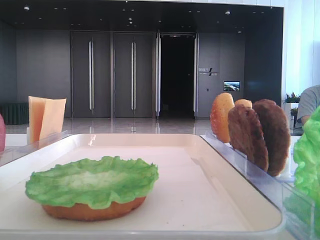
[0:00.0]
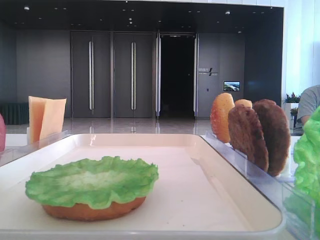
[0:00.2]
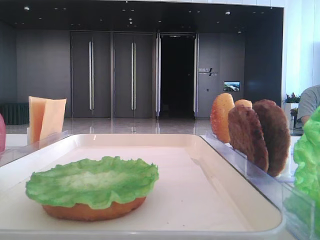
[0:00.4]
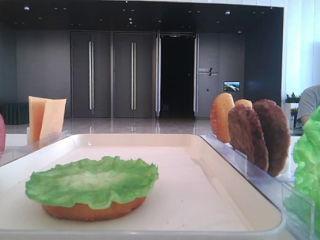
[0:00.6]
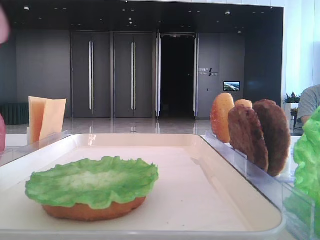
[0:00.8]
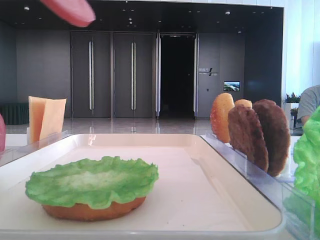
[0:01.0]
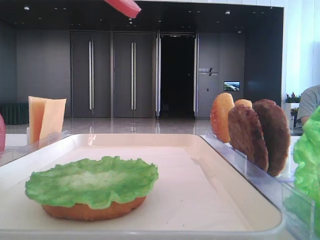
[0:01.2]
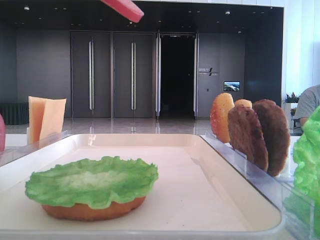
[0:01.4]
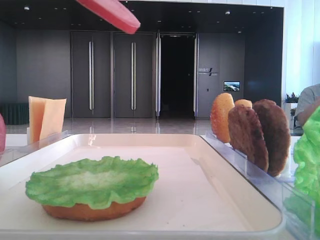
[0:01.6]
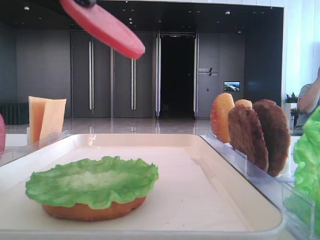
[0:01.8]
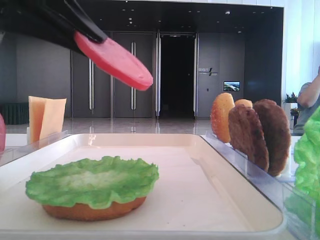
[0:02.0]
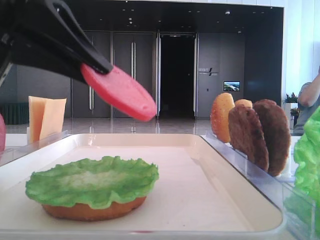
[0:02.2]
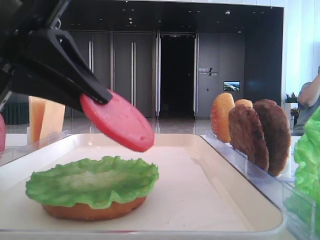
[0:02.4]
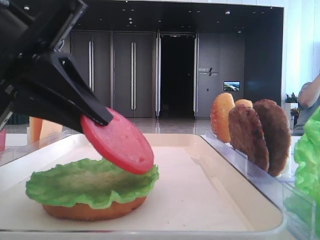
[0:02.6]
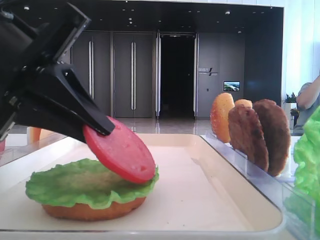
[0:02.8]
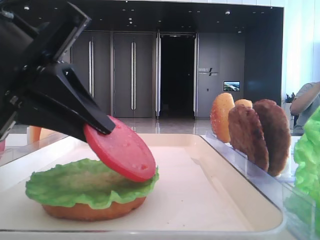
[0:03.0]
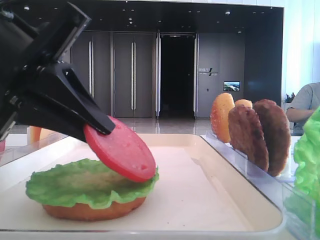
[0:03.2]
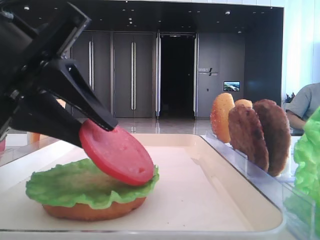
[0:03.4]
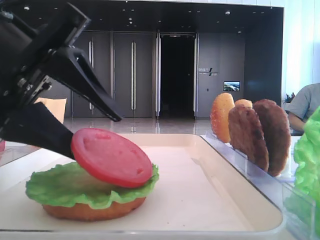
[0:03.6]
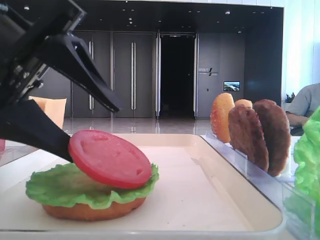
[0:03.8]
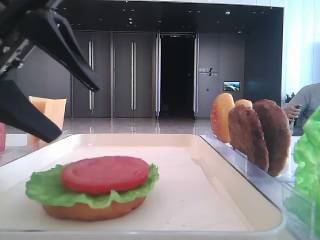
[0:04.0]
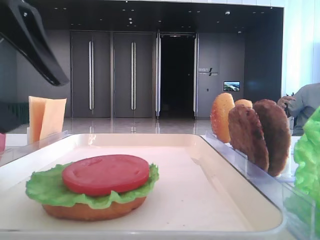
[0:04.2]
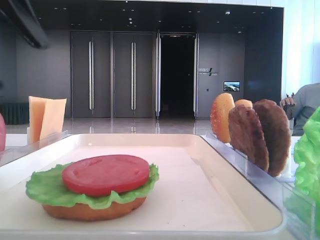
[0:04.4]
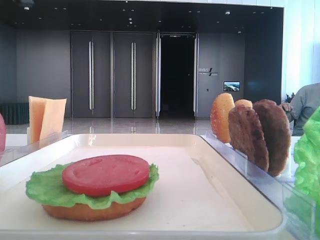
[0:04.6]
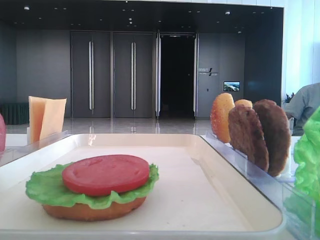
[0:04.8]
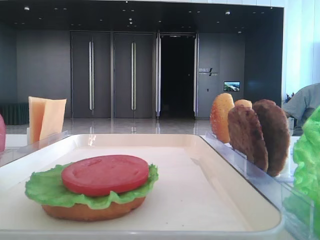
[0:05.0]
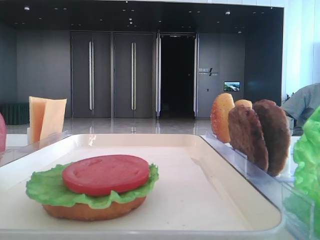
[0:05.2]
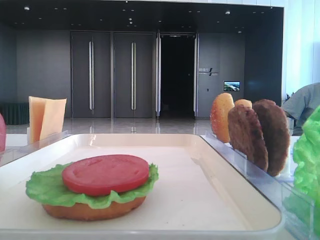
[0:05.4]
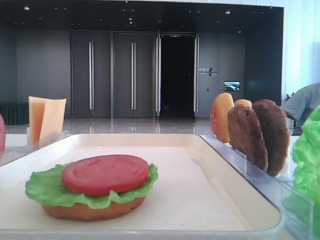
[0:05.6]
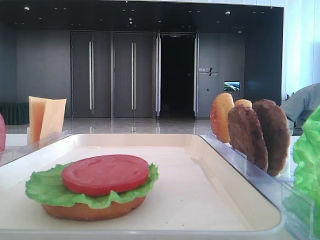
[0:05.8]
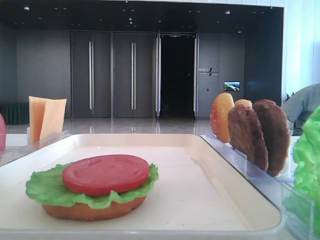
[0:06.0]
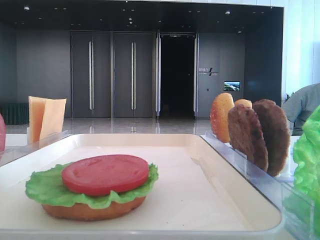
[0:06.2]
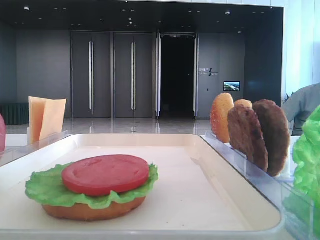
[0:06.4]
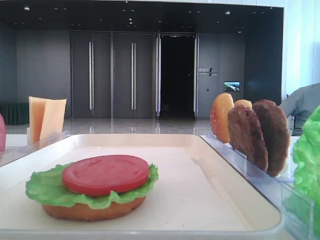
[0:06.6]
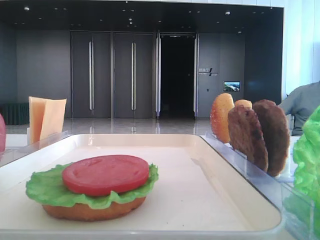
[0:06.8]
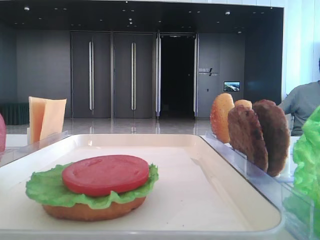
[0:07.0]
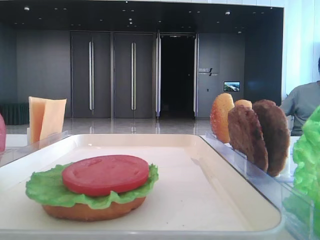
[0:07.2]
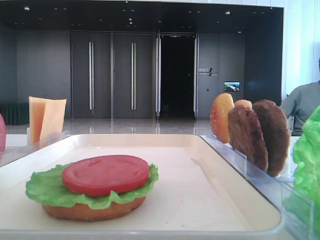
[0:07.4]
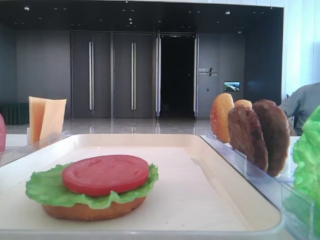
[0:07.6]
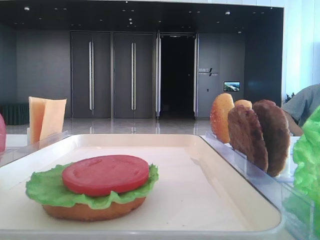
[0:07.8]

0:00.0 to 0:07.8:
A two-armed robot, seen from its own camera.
Step, 0:00.0 to 0:03.8: Place the tomato slice on the lettuce leaf with the left hand.
0:00.0 to 0:01.6: The left gripper shifts about 10 cm backward and downward.
0:01.6 to 0:03.2: The left gripper goes approximately 10 cm downward.
0:03.2 to 0:04.6: The left gripper heads upward and to the left, covering roughly 15 cm, and opens up.

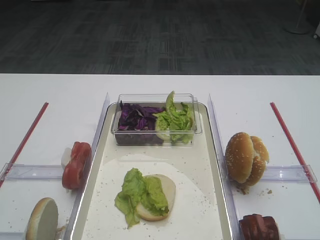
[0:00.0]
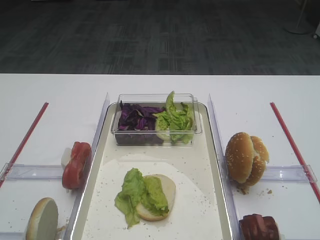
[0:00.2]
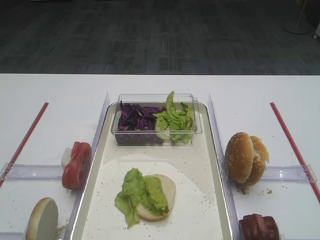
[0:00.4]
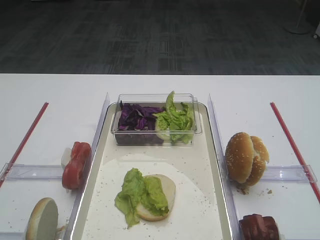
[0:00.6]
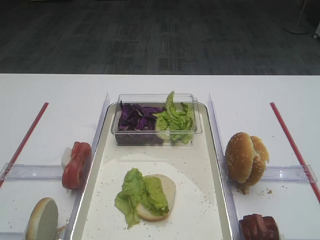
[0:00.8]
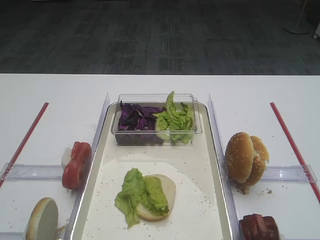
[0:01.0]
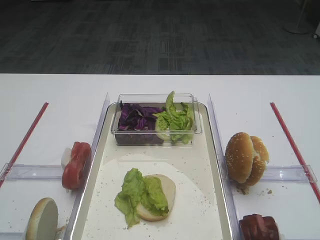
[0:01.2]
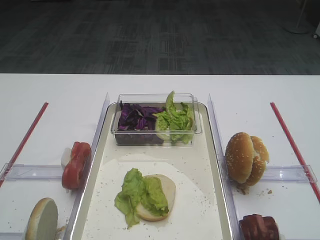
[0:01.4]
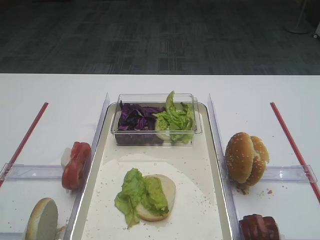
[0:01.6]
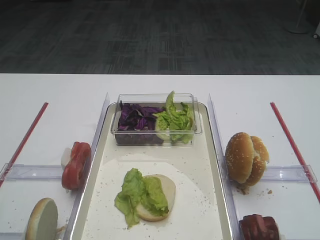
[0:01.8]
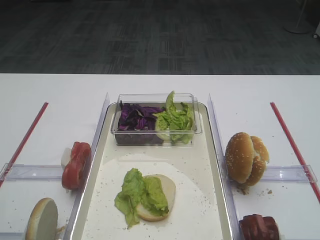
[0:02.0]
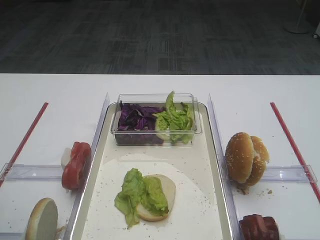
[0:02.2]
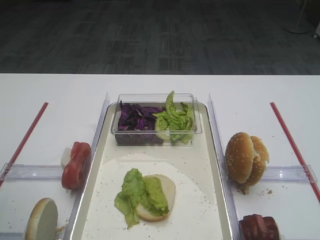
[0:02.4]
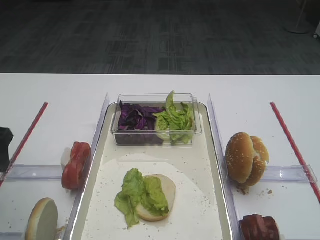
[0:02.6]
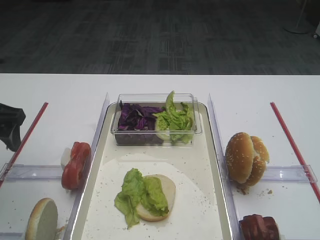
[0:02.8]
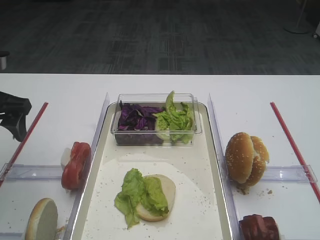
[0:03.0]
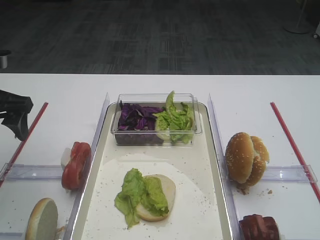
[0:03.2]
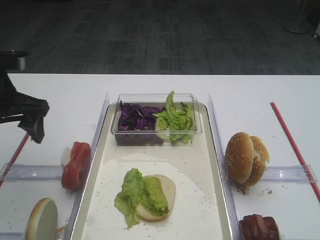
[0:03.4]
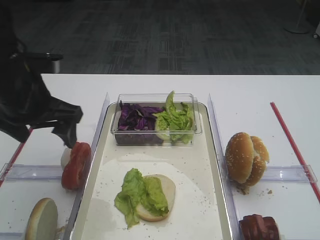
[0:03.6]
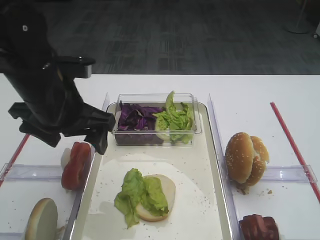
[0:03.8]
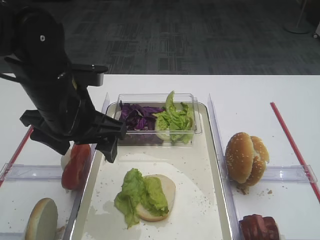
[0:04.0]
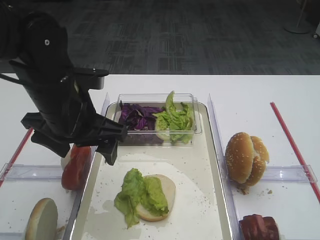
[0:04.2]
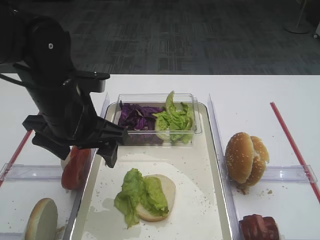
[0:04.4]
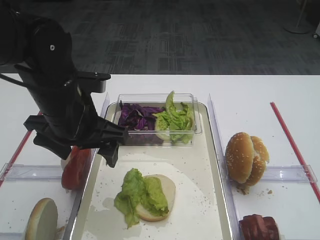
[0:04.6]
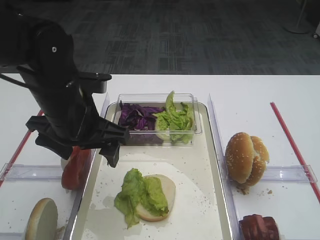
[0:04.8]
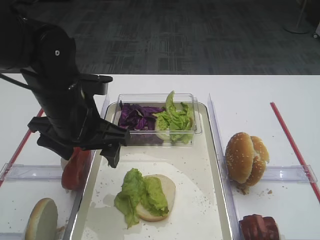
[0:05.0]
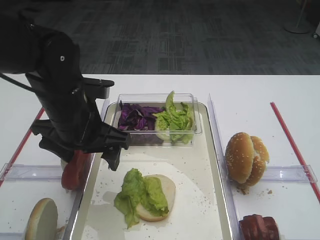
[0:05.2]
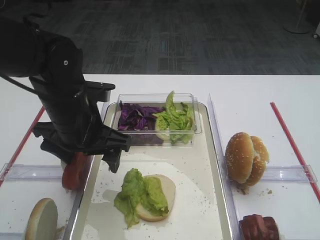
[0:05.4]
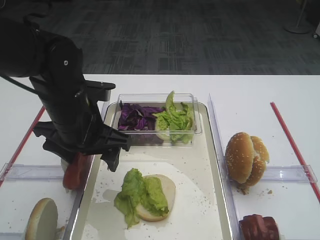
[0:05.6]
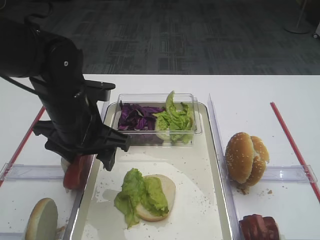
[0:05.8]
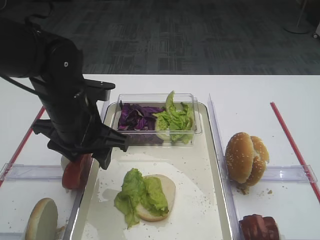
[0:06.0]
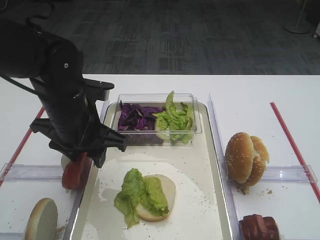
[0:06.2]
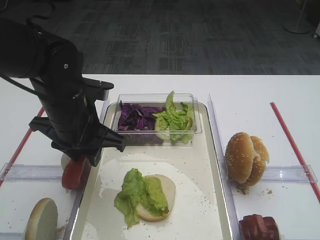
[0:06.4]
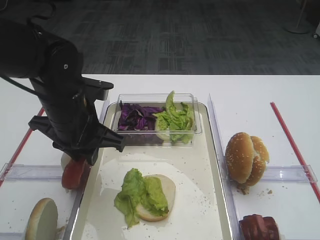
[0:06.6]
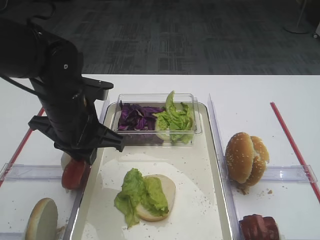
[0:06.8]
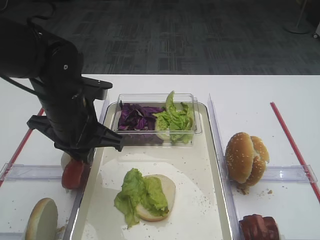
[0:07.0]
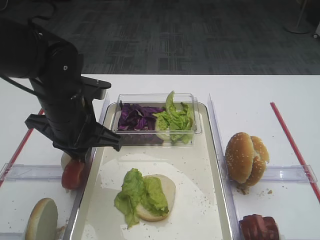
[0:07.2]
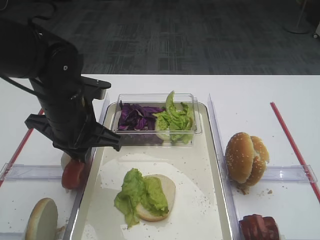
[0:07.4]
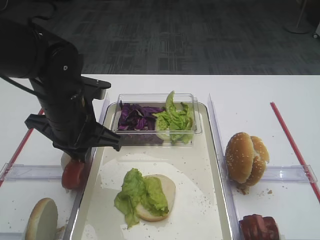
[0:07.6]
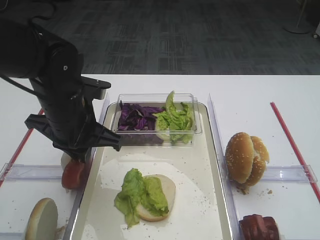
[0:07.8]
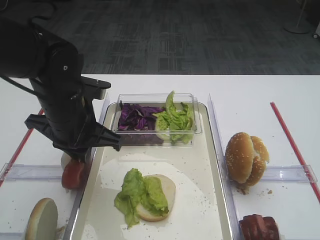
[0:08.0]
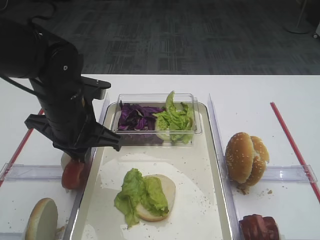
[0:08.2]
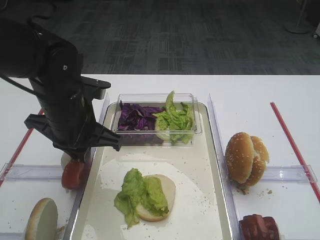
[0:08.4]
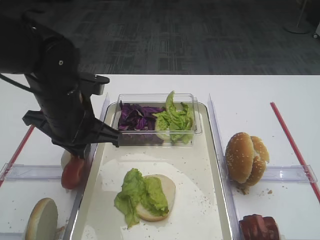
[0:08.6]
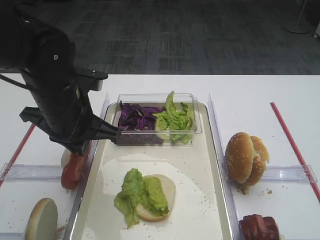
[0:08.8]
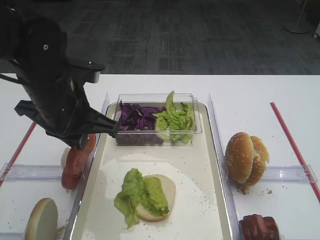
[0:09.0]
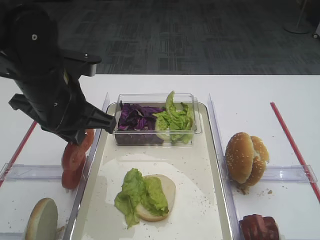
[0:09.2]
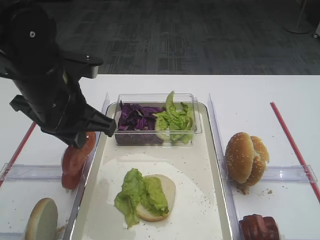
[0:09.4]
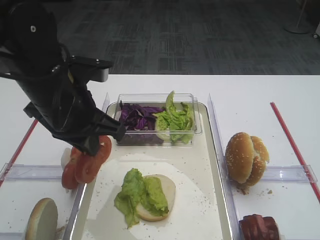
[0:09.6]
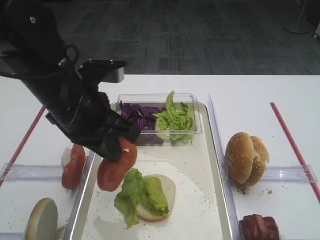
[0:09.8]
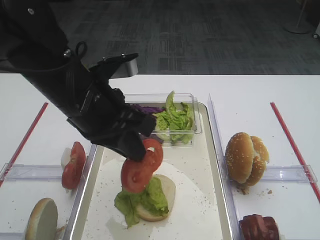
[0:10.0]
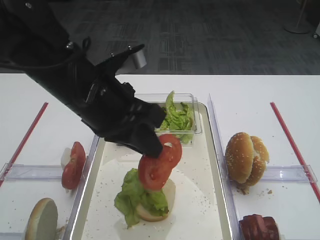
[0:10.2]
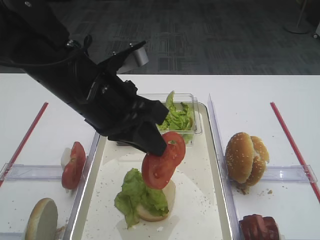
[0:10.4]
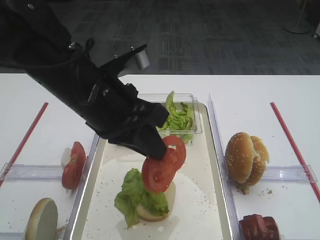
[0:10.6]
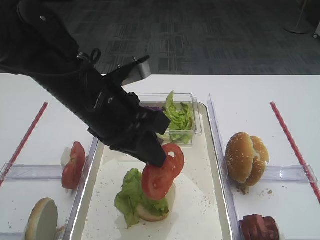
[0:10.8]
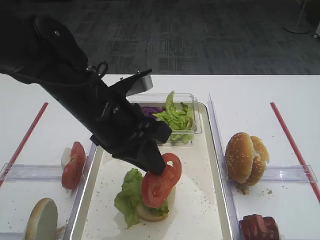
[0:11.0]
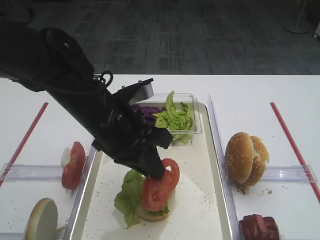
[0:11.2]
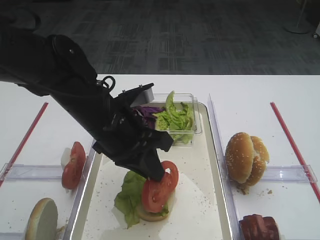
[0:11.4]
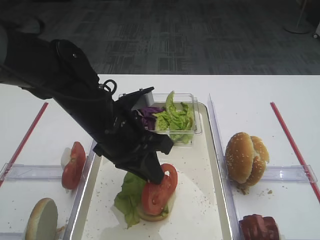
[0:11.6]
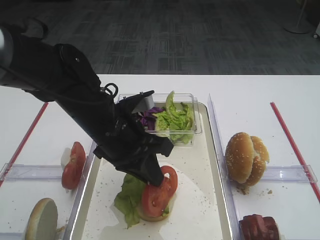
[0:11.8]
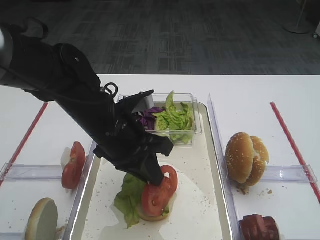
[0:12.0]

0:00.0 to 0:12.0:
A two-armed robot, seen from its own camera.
Step, 0:00.0 to 0:08.8: Pick up the tomato slice with the left gripper.
0:01.6 to 0:03.0: The left gripper moves forward, roughly 20 cm.
0:03.0 to 0:04.4: The left gripper is displaced to the right by approximately 15 cm.
0:04.4 to 0:06.0: The grippers make only small movements.
0:06.0 to 0:07.6: The left gripper closes its fingers.
0:07.6 to 0:09.0: The grippers make only small movements.
0:09.0 to 0:10.4: The left gripper heads to the right, covering about 5 cm.
0:10.4 to 0:12.0: The left gripper shifts about 10 cm downward.

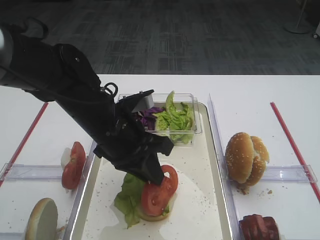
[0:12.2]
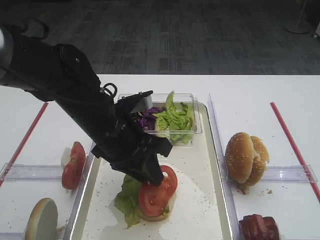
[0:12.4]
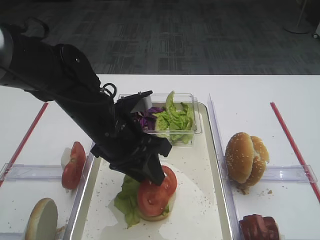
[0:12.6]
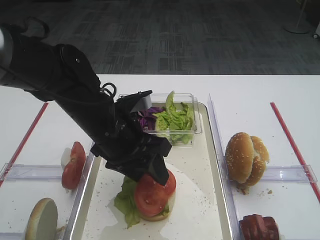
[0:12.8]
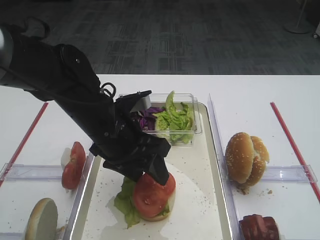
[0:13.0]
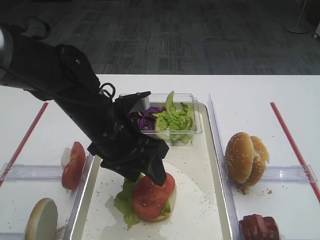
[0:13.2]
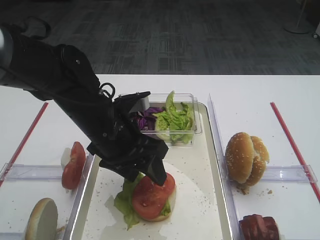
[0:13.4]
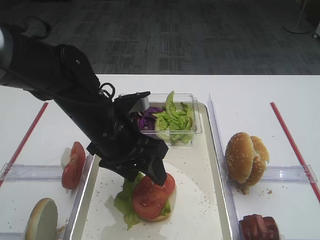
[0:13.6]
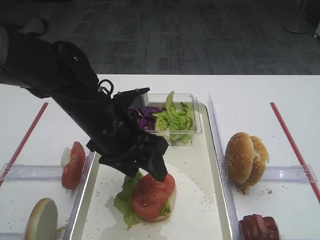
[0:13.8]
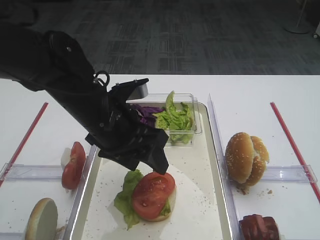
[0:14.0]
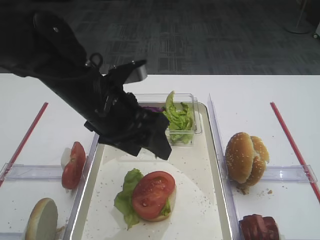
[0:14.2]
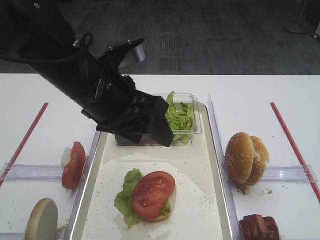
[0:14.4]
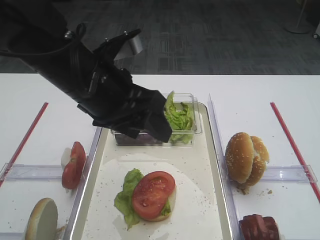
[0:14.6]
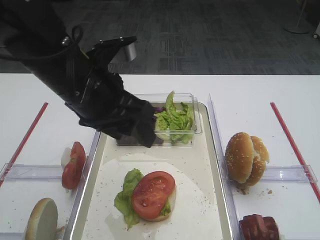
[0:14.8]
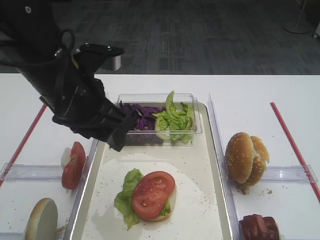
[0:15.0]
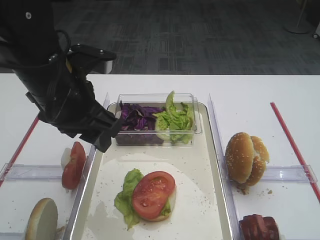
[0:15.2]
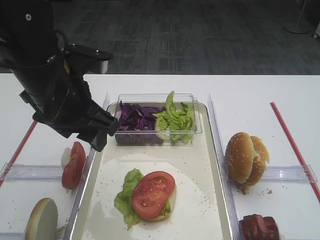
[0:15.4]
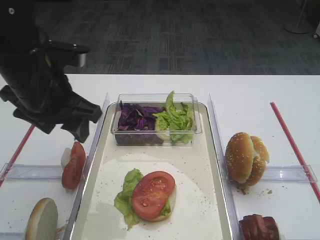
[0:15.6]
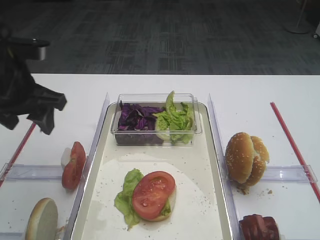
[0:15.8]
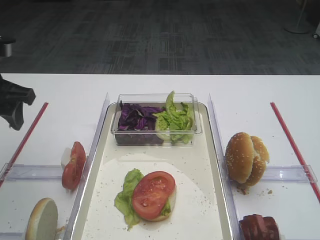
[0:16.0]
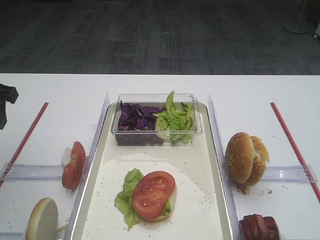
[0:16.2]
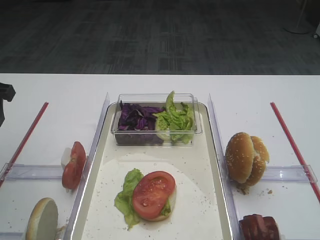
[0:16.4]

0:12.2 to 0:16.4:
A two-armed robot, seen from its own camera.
Step, 0:12.2 to 0:15.0: Place the tomato slice on the lettuce leaf with the left gripper.
0:12.2 to 0:13.6: The left gripper opens up.
0:13.6 to 0:15.0: The left gripper travels upward by roughly 10 cm.
0:15.0 to 0:16.4: The left gripper shifts approximately 20 cm to the left.
